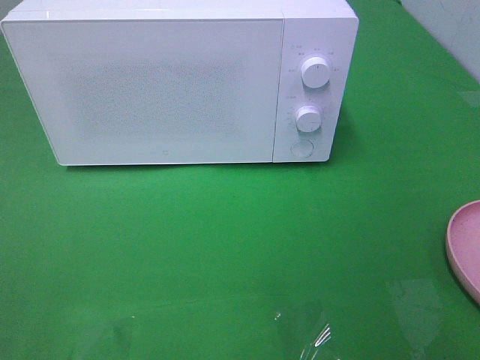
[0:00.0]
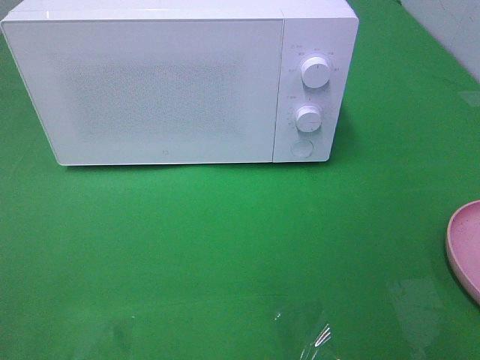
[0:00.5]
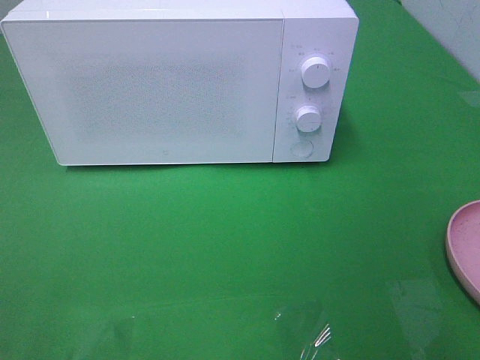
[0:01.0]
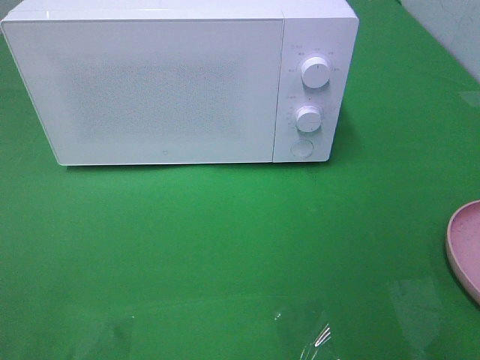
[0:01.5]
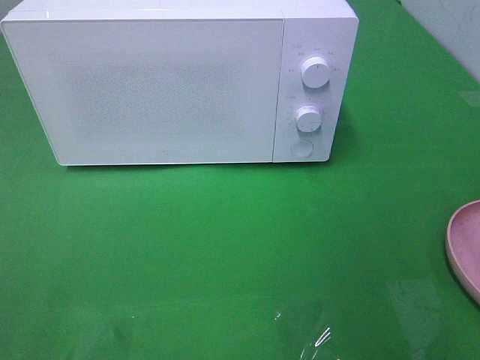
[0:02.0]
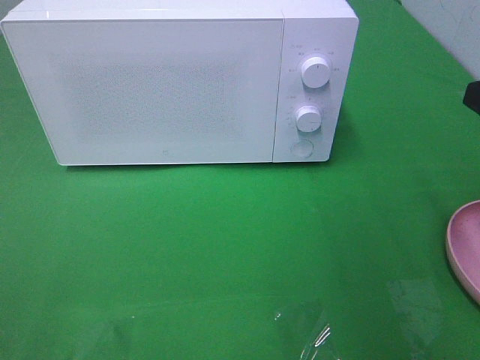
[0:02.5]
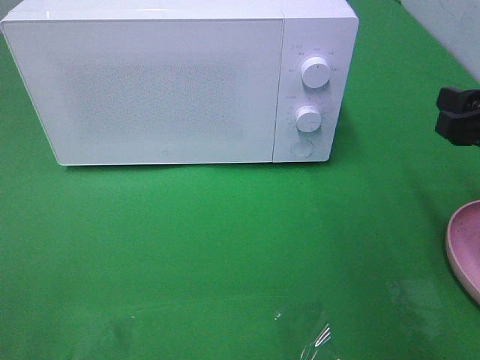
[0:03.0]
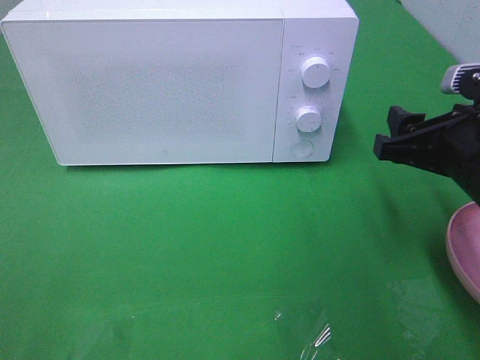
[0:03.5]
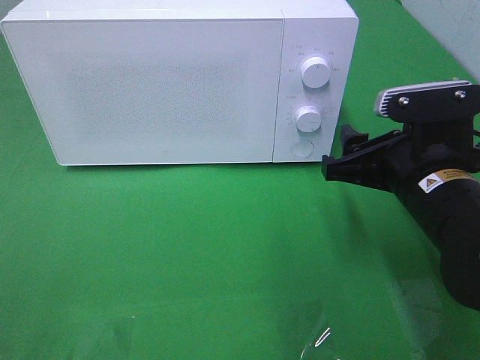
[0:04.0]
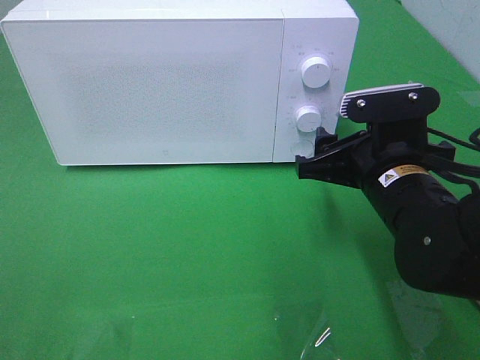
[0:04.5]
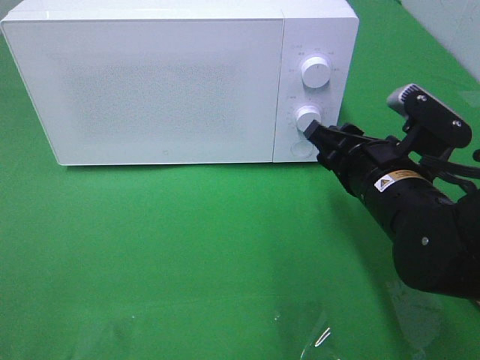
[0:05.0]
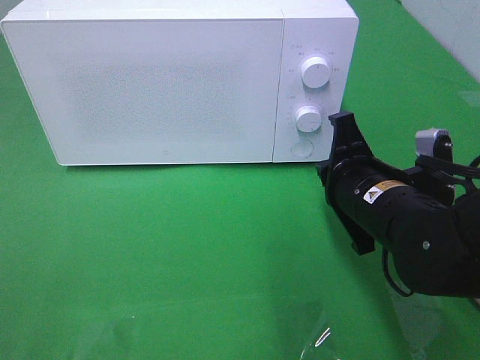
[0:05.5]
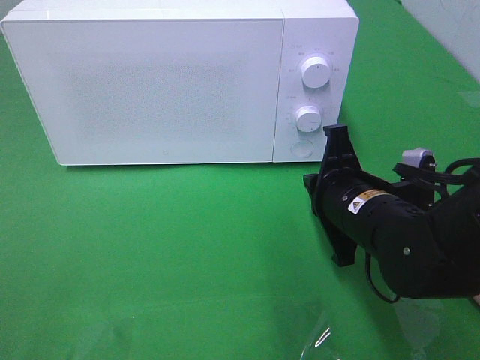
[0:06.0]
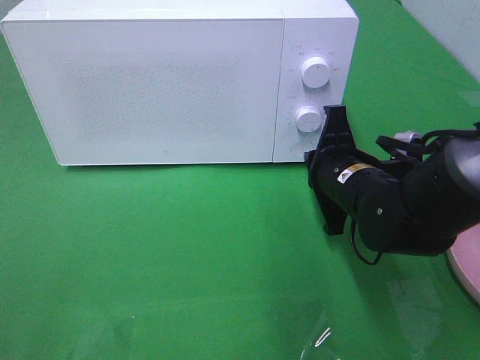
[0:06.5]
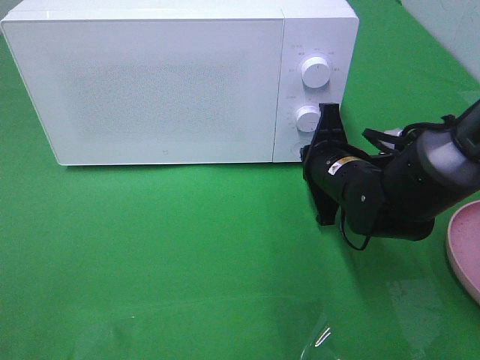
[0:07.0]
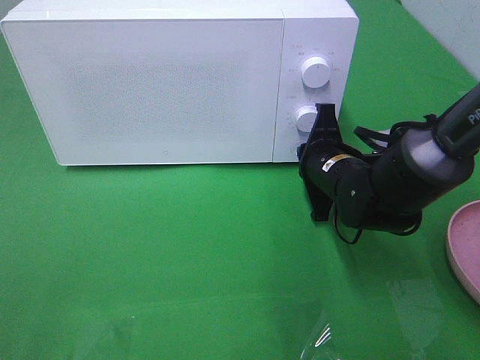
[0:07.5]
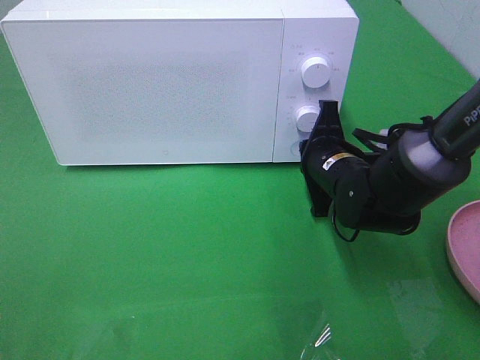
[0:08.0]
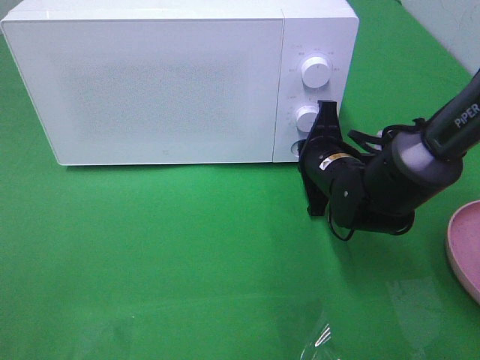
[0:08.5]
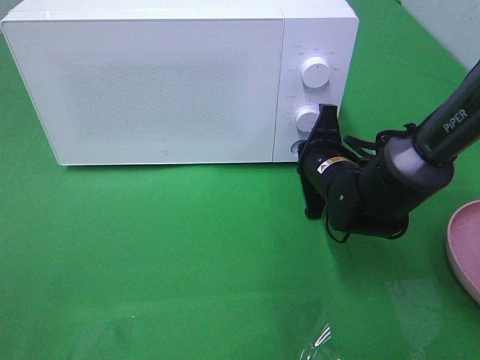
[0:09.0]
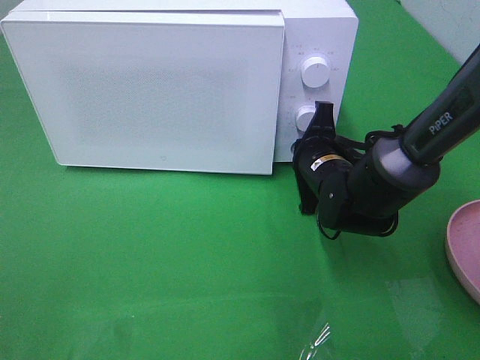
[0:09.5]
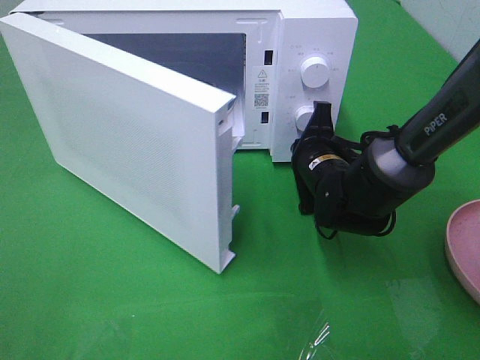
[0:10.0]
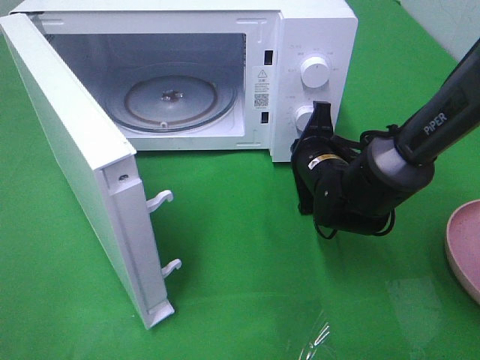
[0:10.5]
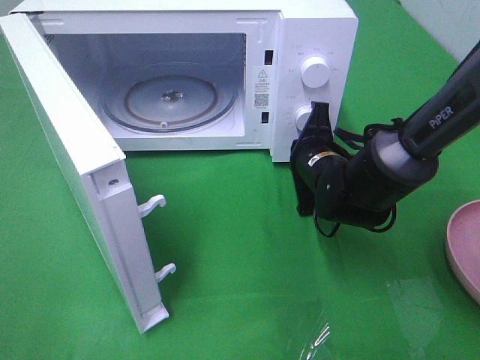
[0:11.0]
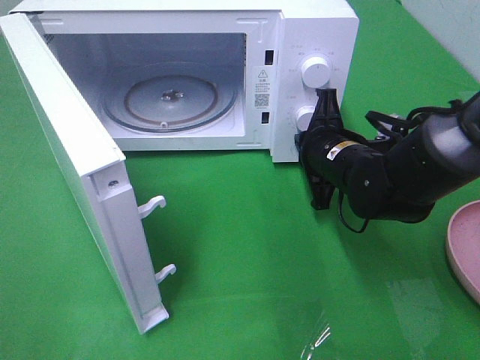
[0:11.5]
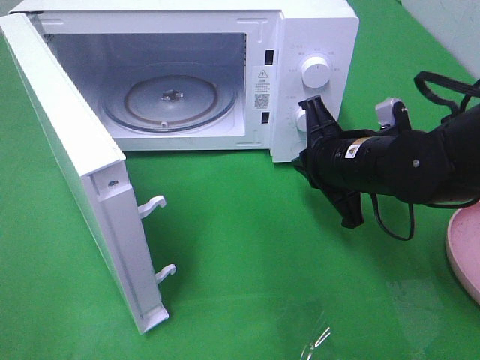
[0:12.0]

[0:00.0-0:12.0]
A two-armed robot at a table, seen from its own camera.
Task of the whole recording: Heat the burger.
Step, 0:00.0 to 0:11.5: Right hand: press the switch.
0:02.0 to 0:04.0: The right gripper is displaced downward, to the left and forward by roughly 20 cm.
0:04.0 to 0:06.0: The right gripper moves downward, approximately 5 cm, and closes up.
0:06.0 to 0:08.0: The right gripper heads forward, covering roughly 10 cm.
0:10.0 to 0:12.0: The right gripper moves upward and backward, approximately 10 cm.

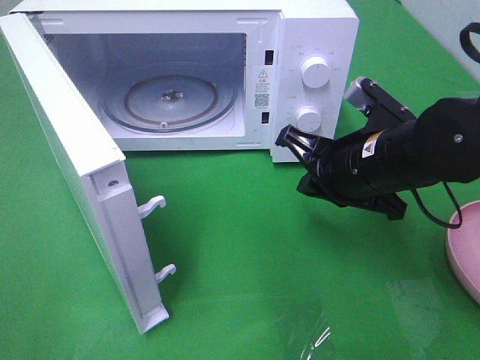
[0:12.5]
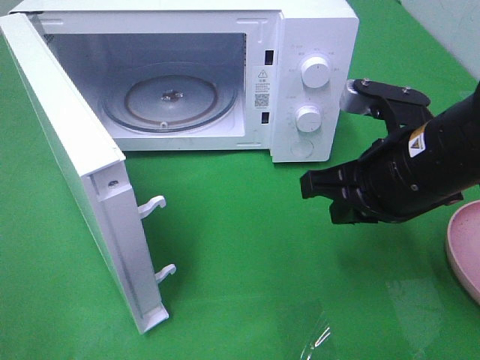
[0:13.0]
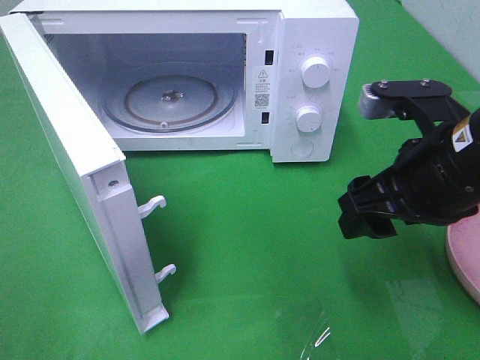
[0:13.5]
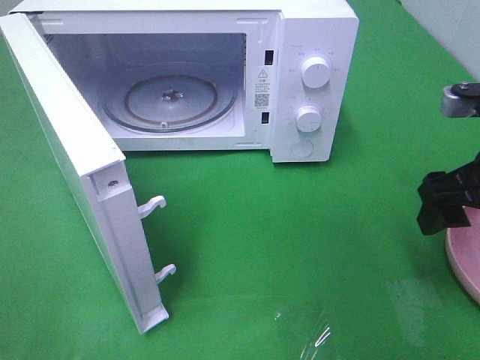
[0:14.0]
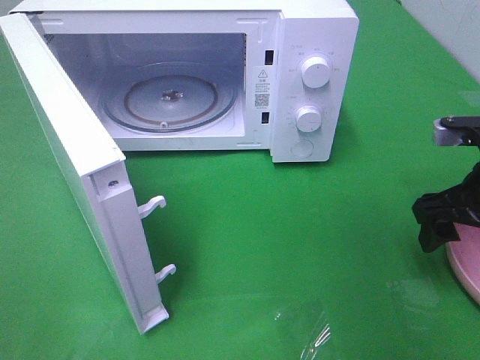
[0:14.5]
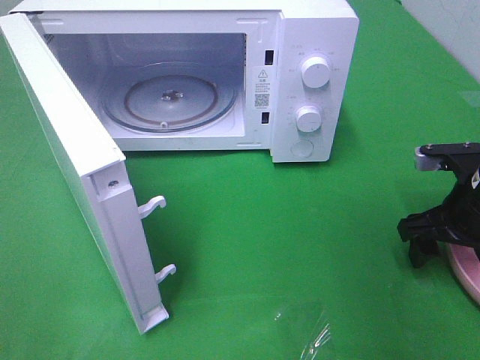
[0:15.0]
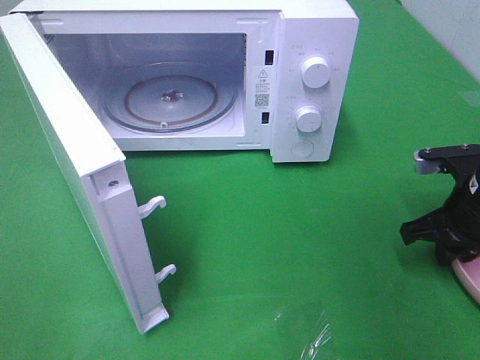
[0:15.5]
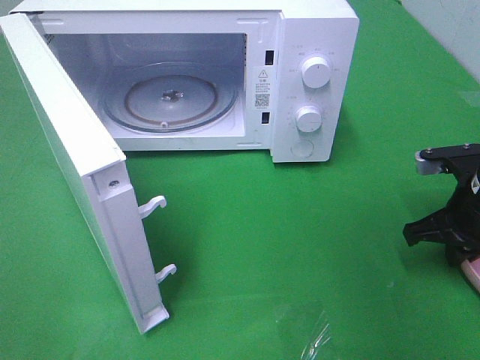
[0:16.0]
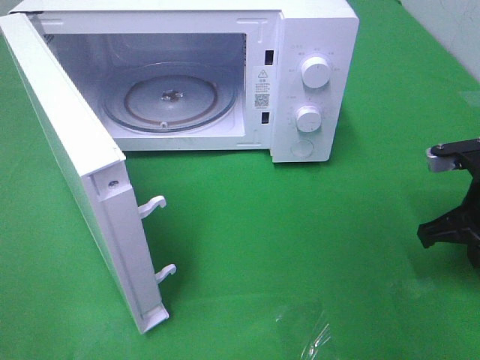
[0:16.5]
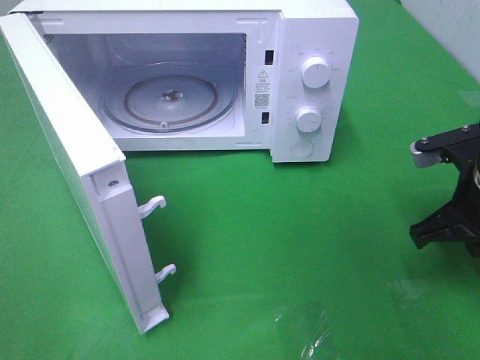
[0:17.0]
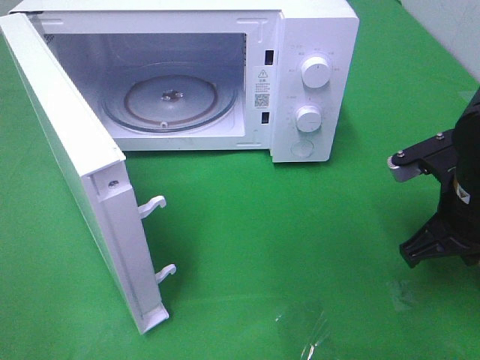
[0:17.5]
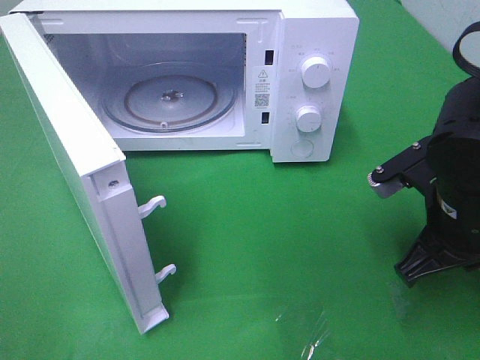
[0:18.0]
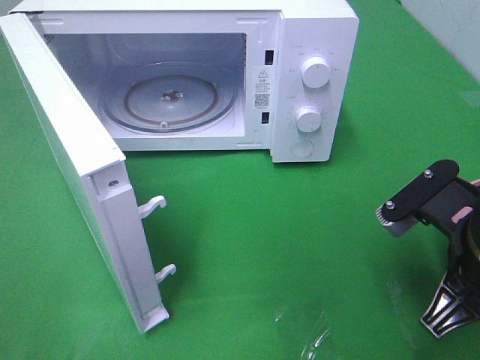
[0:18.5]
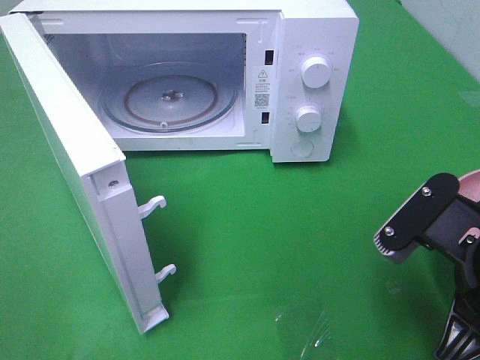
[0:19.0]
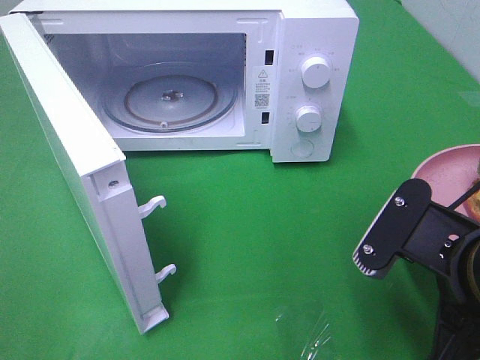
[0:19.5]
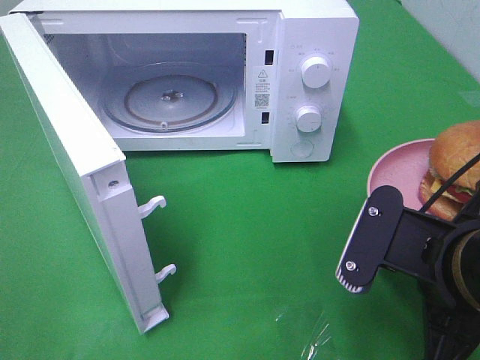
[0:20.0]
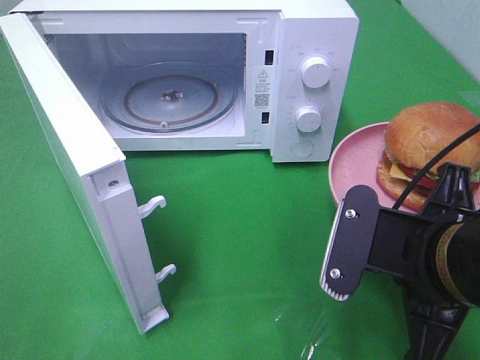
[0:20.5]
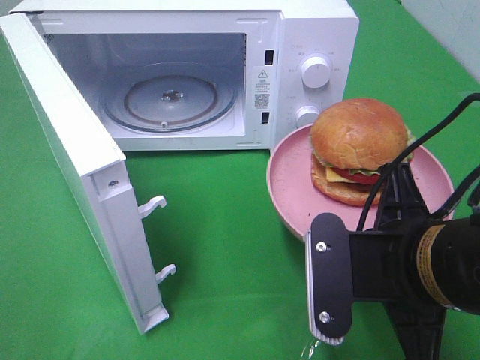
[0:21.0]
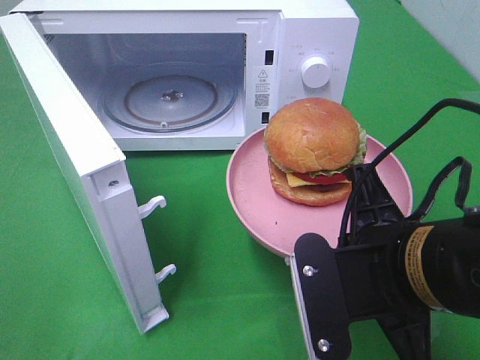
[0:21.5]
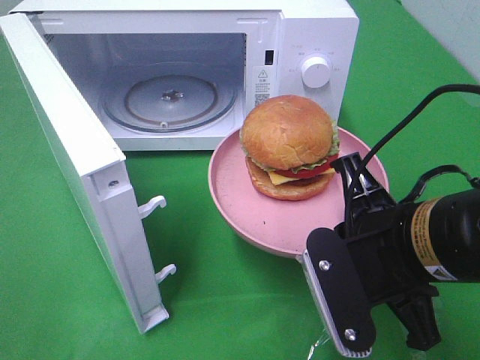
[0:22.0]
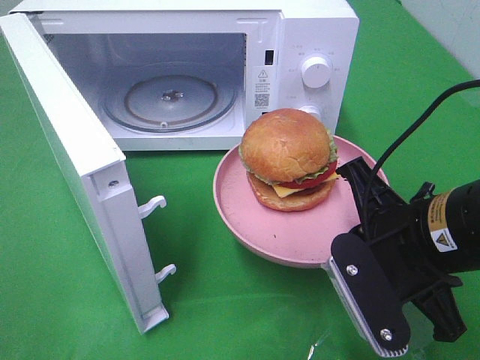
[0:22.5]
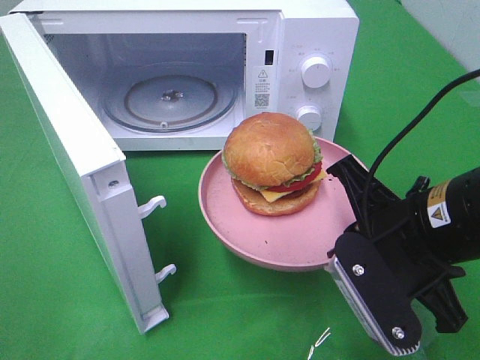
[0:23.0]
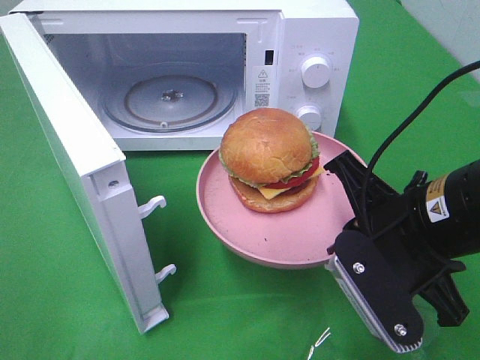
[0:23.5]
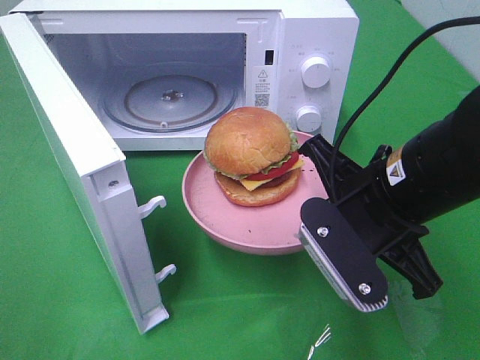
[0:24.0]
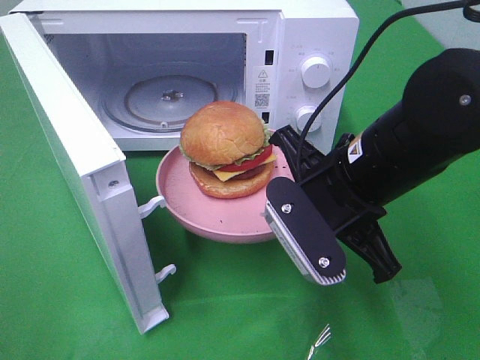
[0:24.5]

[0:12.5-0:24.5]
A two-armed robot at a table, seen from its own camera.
Task of the whole recording: Heat the burger.
Step, 0:12.5 to 0:16.0: Right hand: grab the plate with the hamburger.
0:12.5 to 0:14.5: The right gripper moves to the right, approximately 15 cm, and opens its fingers.
0:14.5 to 0:16.5: The right gripper closes up.
0:16.5 to 0:18.5: The right gripper is displaced backward and to the left by about 10 cm.
0:18.5 to 0:20.5: The right gripper ends up roughly 5 cm from where it was.
0:22.5 to 0:24.5: The right gripper is displaced forward by roughly 5 cm.

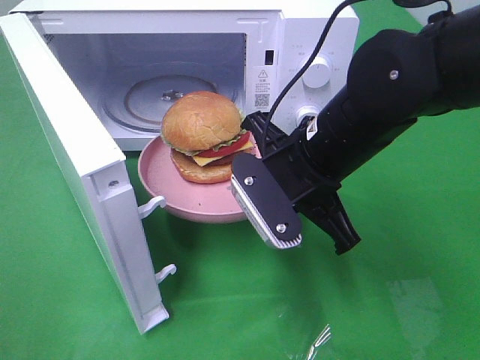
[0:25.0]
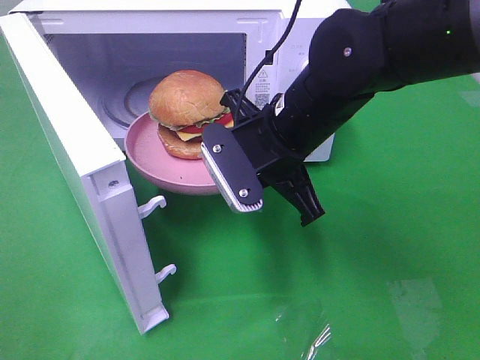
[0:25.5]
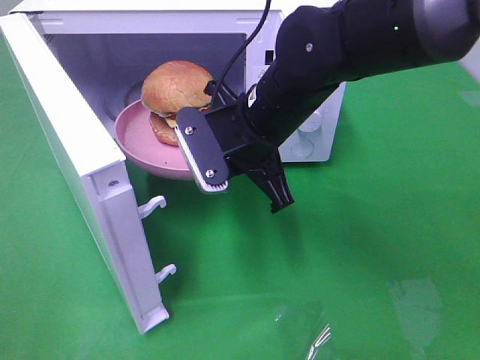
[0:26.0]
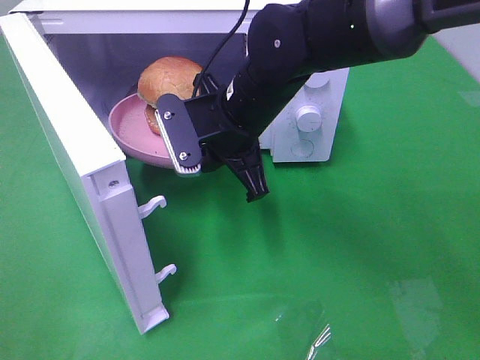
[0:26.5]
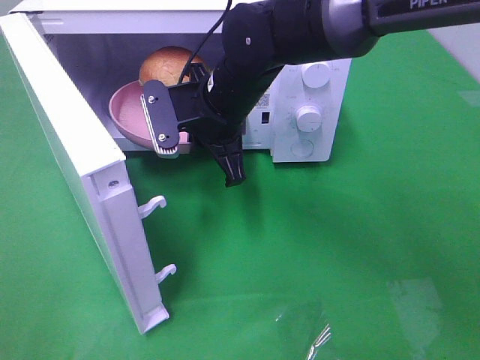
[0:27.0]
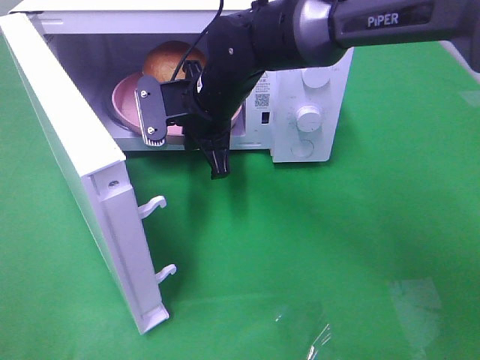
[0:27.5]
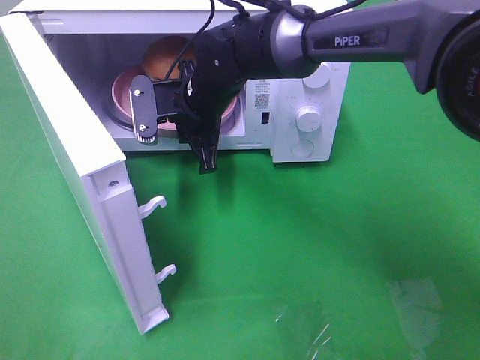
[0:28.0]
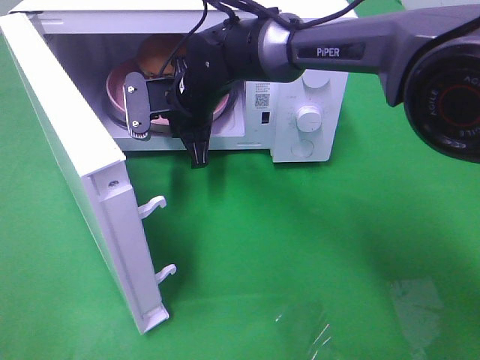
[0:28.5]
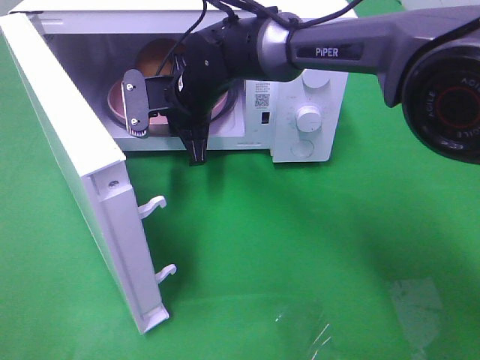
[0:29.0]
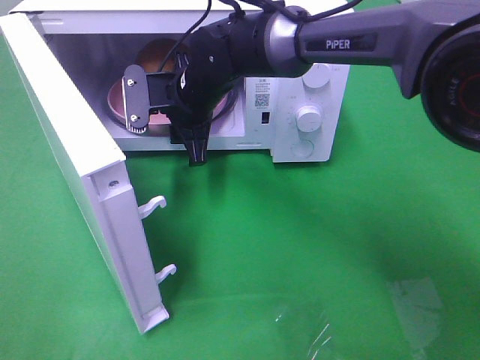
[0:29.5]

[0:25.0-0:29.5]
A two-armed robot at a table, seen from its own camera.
Task of the whole recording: Heat the burger.
0:25.0 to 0:27.0: The right gripper heads forward and to the left, covering about 15 cm.
0:27.0 to 0:29.5: The right gripper moves about 5 cm, and opens up.
